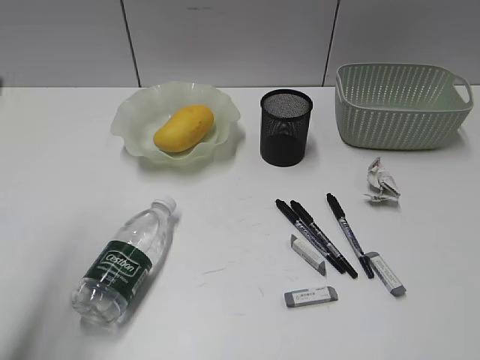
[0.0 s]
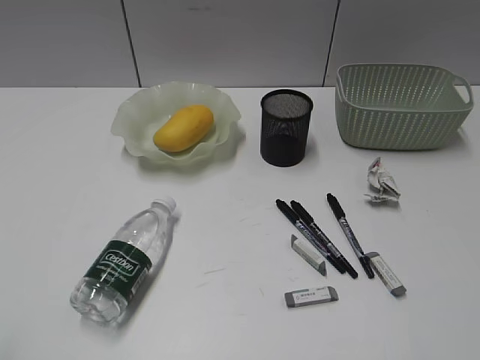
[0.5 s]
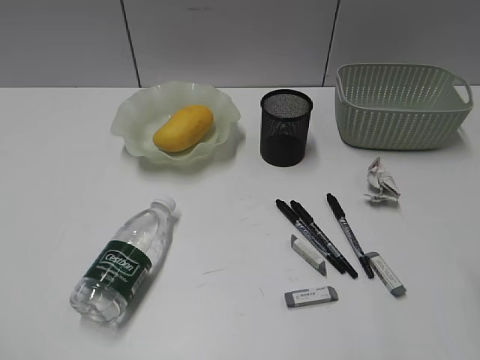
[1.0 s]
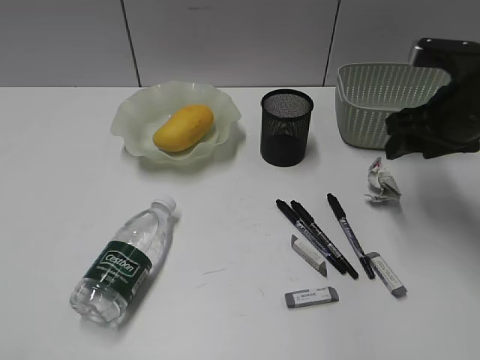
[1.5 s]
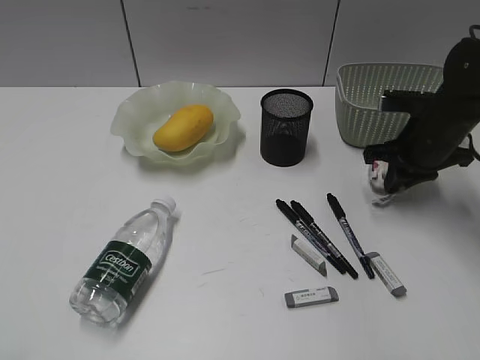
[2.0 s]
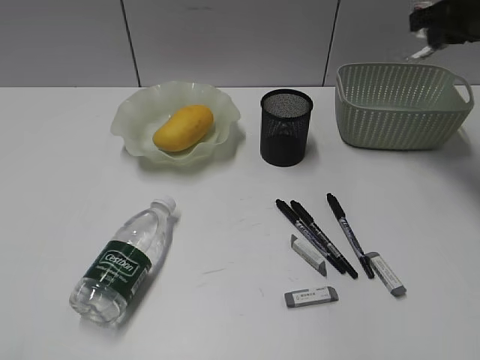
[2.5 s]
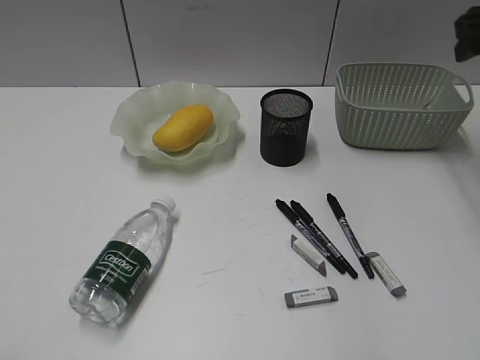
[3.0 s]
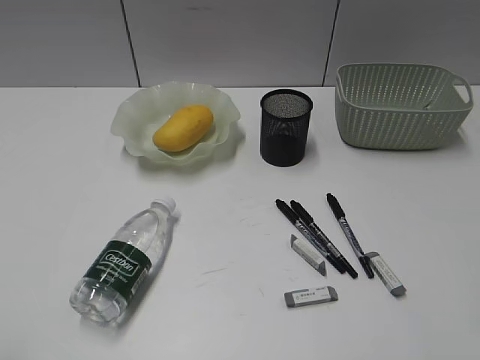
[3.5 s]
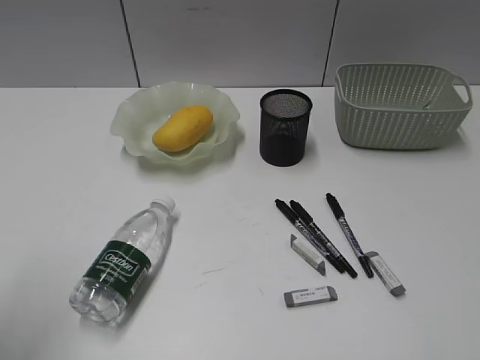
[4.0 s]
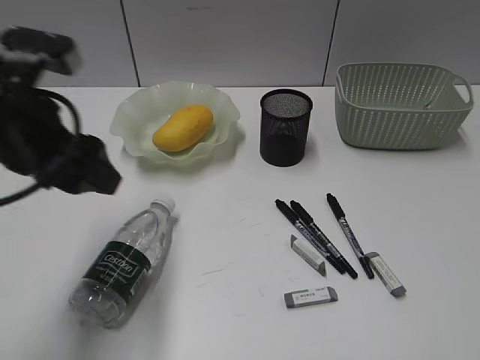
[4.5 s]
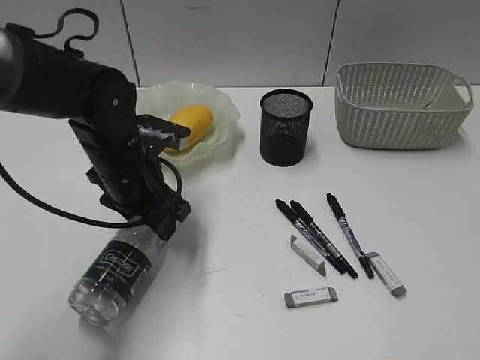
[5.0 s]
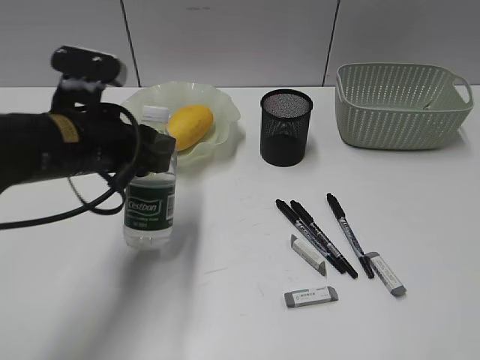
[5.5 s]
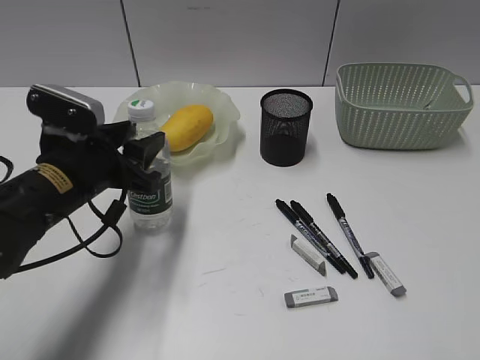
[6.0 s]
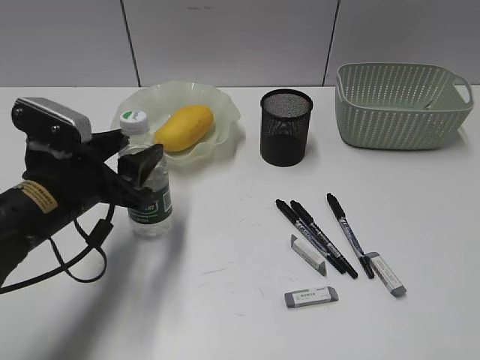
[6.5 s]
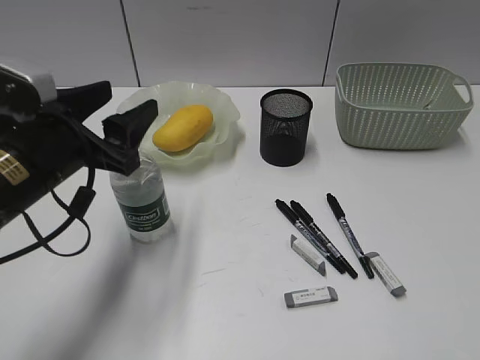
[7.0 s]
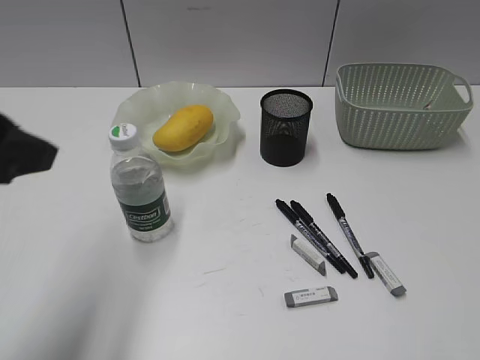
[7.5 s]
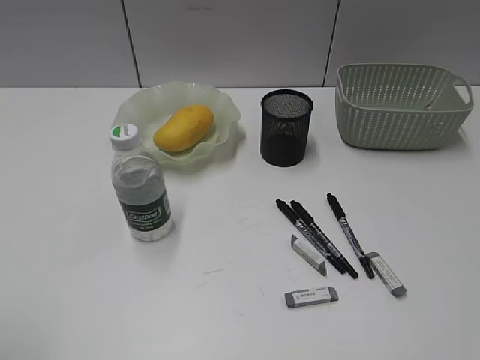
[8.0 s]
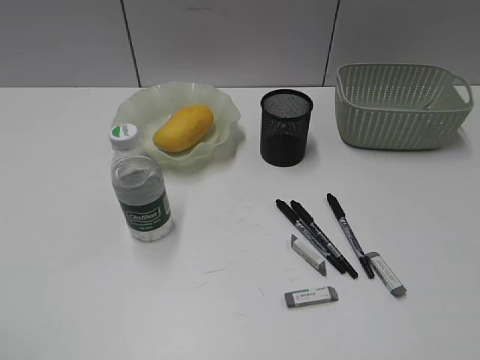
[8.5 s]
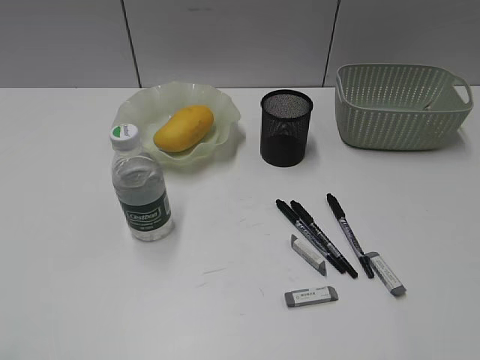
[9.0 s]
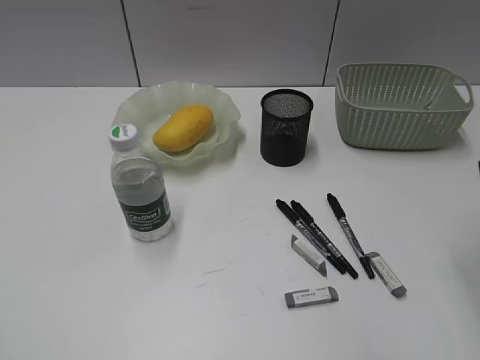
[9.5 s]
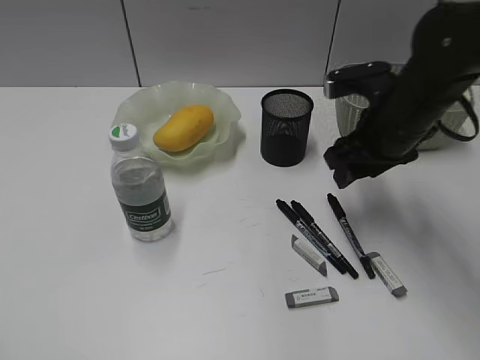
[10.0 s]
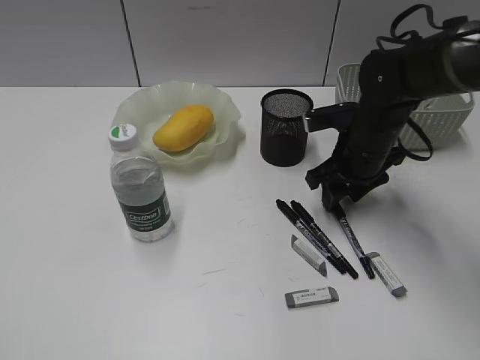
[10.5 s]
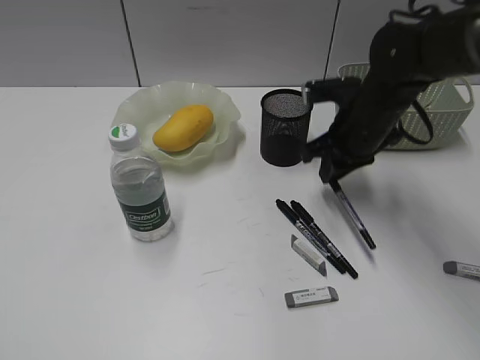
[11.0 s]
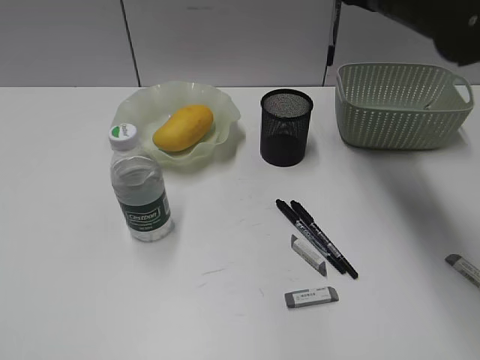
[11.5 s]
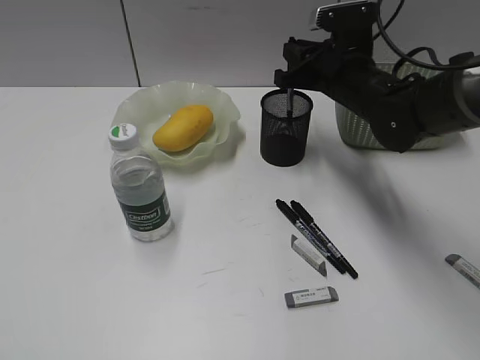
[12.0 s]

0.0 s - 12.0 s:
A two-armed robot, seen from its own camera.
Step, 0.0 s - 2.0 s: Grasp the waste paper with right gripper.
Step, 3.0 s - 5.0 s: Grasp the bottle with left gripper.
Step, 5.5 s - 6.5 s: Stand the bottle with left gripper.
Step, 7.0 s - 10.5 s: Grasp the black pen with right gripper.
0.0 s - 2.0 s: The right gripper travels forward and downward by about 40 cm, and closes up, while the left gripper shifts some 20 cm backward.
2.0 s - 4.0 s: The right gripper is displaced backward and upward by roughly 40 cm, and opens. The left gripper travels forward by about 10 cm.
4.0 s - 6.0 s: The left gripper goes some 25 cm forward, downward and to the right, and opens, then closes again.
6.0 s - 8.0 s: The left gripper heads backward, upward and to the left, covering roughly 30 cm, and opens, then closes again.
8.0 s - 10.0 s: The right gripper heads forward, covering roughly 35 cm.
10.0 s - 12.0 s: The right gripper goes up and down, roughly 15 cm each way, reversing 2 times, and closes.

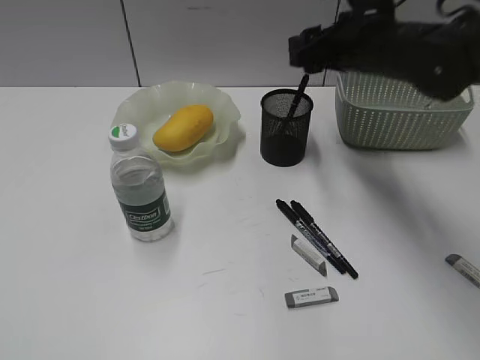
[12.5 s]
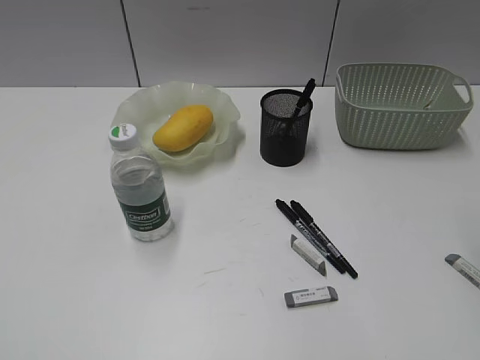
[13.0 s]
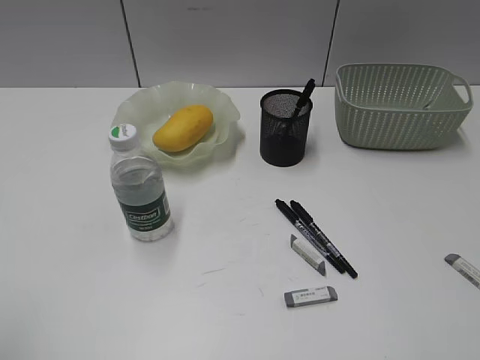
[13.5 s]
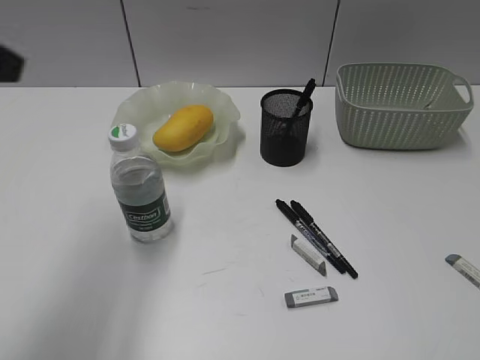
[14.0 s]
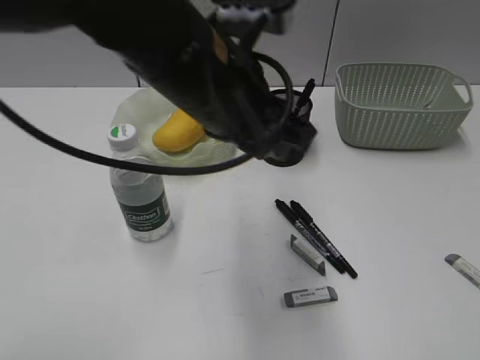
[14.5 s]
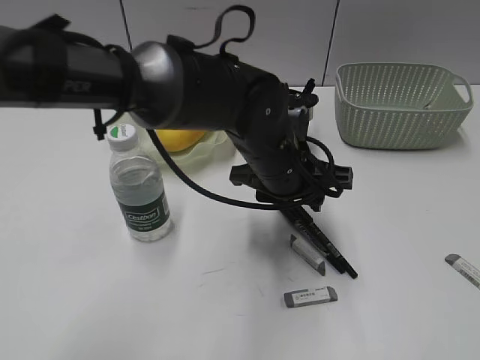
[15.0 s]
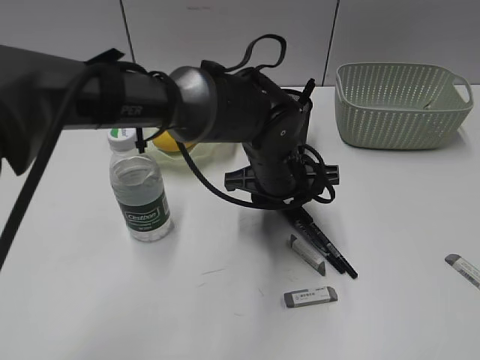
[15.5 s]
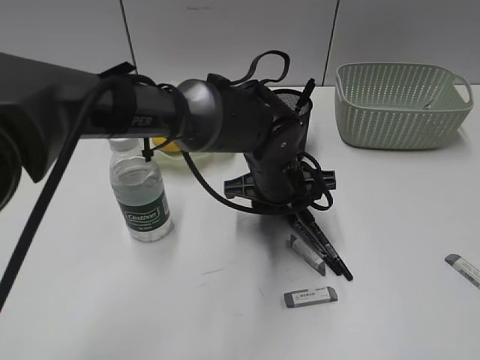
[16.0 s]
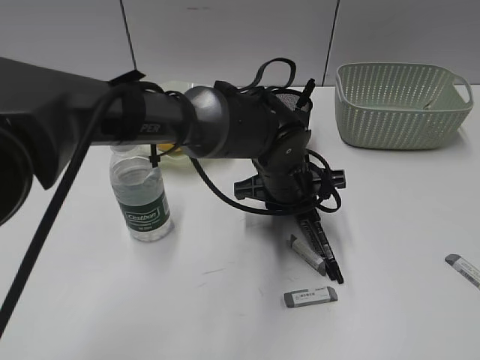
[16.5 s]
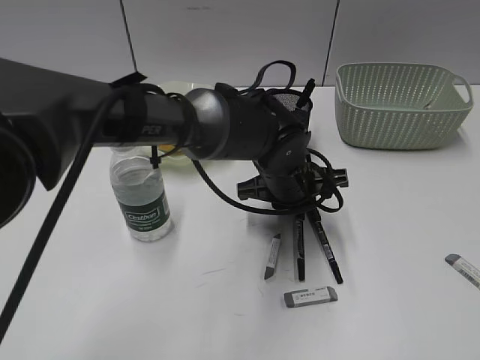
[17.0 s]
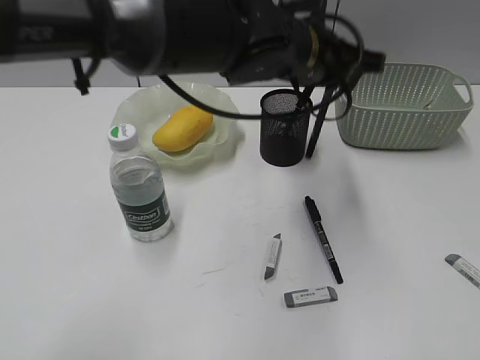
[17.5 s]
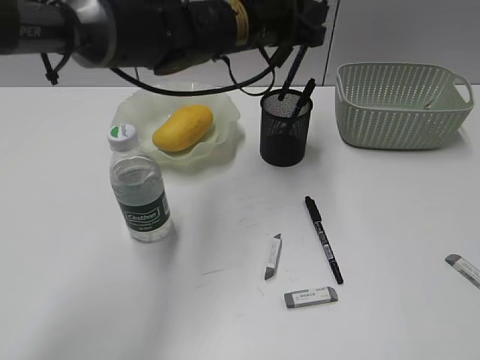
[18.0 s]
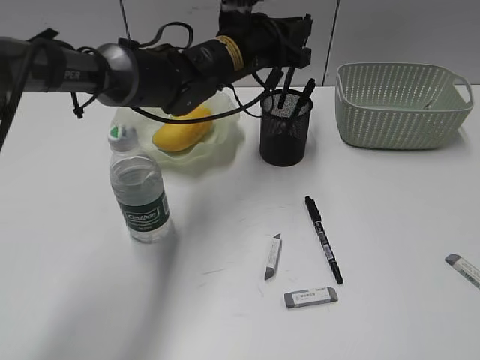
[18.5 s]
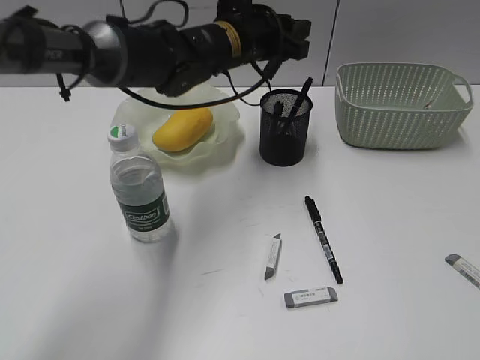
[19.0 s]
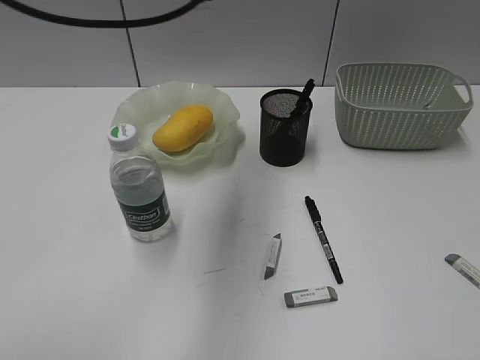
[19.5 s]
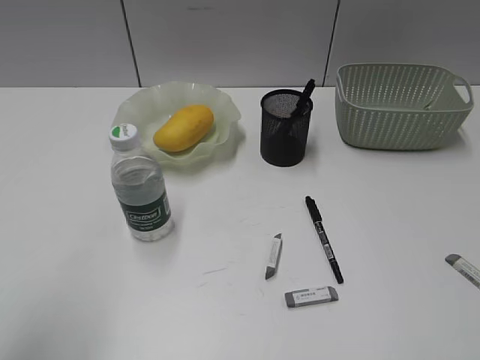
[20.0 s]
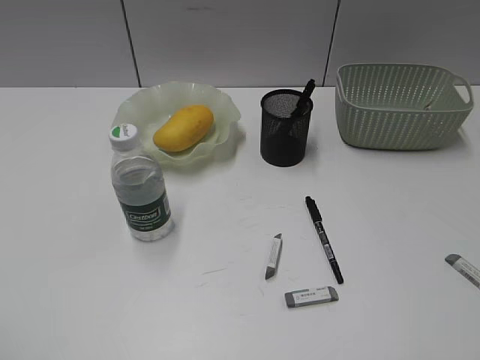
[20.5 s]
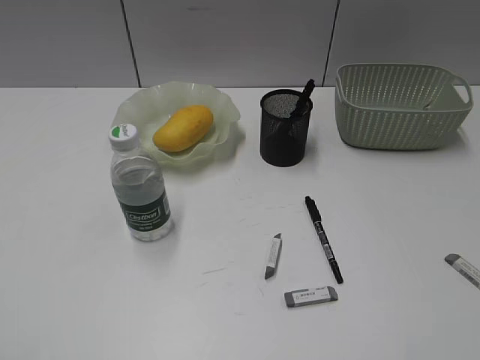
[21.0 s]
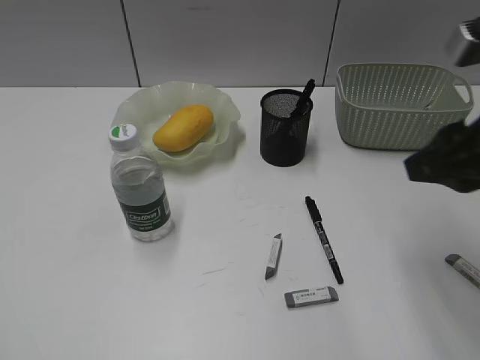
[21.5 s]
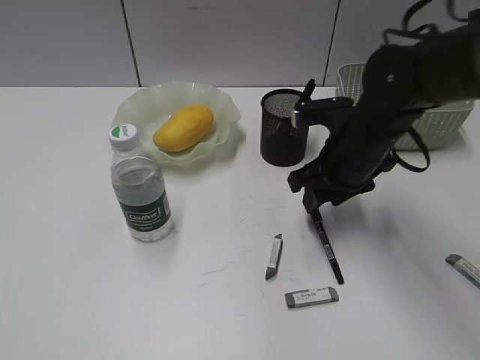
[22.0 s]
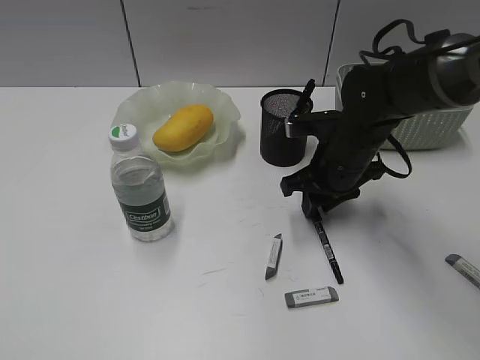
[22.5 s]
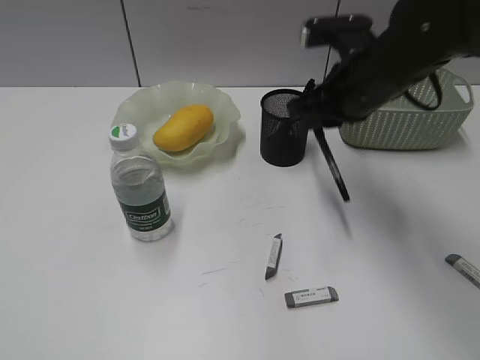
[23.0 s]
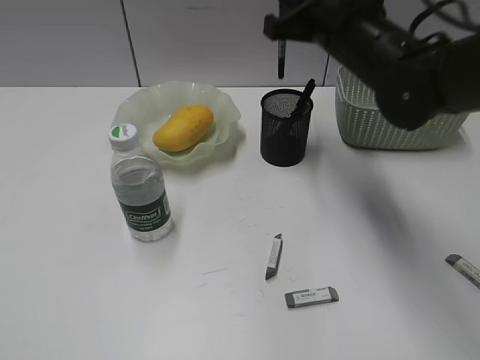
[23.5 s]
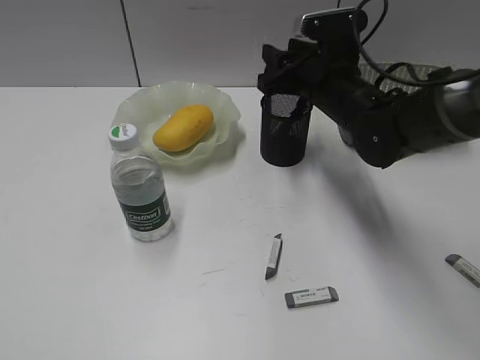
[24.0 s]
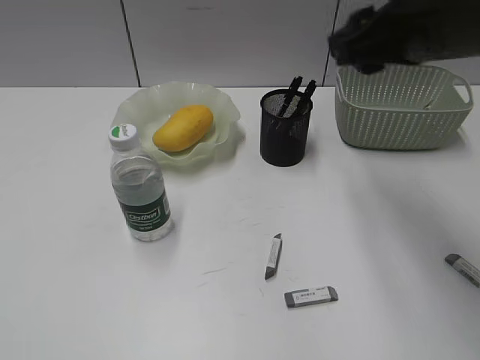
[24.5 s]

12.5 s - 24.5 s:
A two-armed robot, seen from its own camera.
Step, 13.0 s - 17.0 s: Grasp the black pen with left gripper.
Step, 17.5 s - 18.5 s: Place the black pen in pen holder with left gripper.
Step, 19.0 s - 22.5 s: Grasp the black pen with right gripper.
Step, 23.0 s - 24.0 s: Place the black pen in pen holder with right gripper.
12.5 s - 14.5 s: The right gripper heads backward and to the right, covering about 40 cm; the left gripper shifts approximately 40 cm to the right and forward.
14.5 s - 16.5 s: The left gripper travels downward, to the right and forward by about 20 cm.
16.5 s - 18.5 s: The left gripper heads forward, upward and to the left, covering some 15 cm.
18.5 s - 20.5 s: The left gripper moves backward and to the left, some 50 cm, and opens its fingers.
20.5 s - 22.5 s: The right gripper moves forward, to the left and downward, about 40 cm.
22.5 s - 24.5 s: The right gripper goes up and down, roughly 20 cm each way, reversing 2 times, and opens.

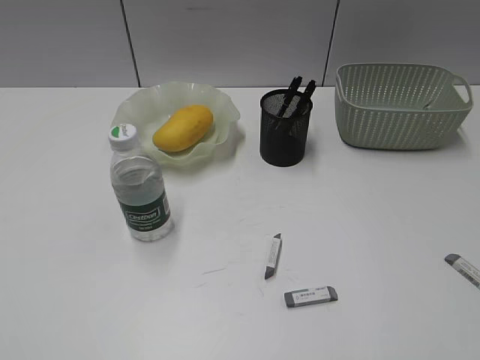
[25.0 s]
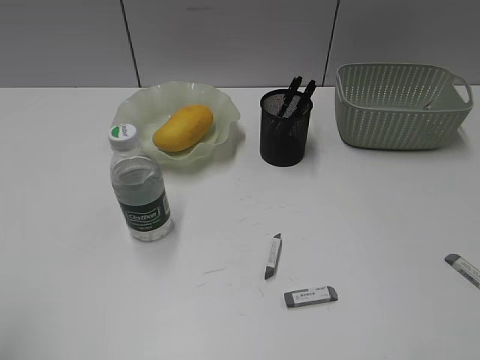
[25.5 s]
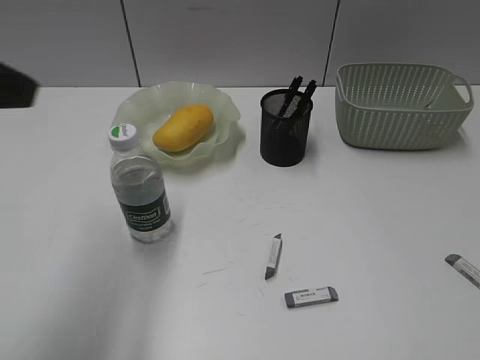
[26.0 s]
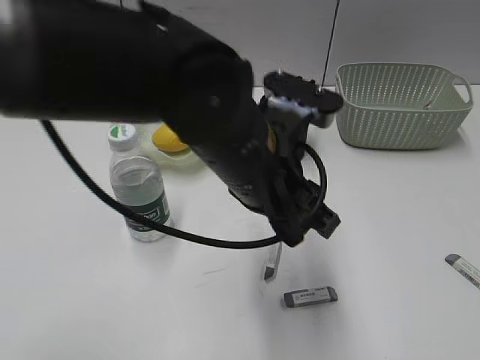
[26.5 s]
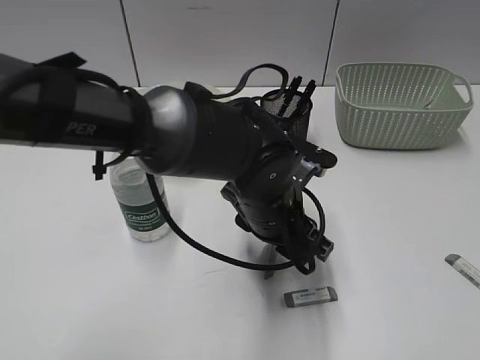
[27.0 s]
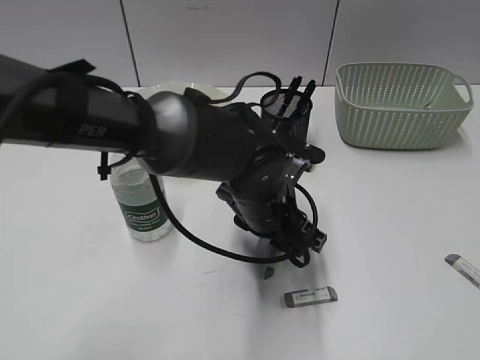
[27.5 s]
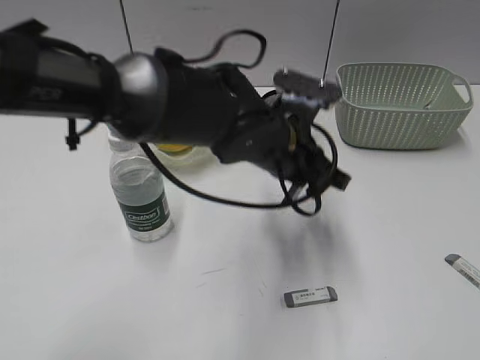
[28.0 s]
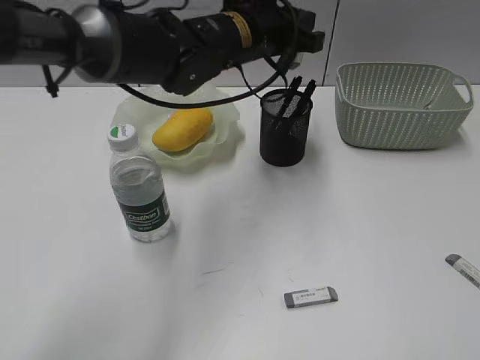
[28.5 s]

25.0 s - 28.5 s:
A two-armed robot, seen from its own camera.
Step, 25.0 s - 27.5 s: Grasp the eraser with left gripper.
25.0 s - 27.0 s: The left gripper travels to the right, forward and downward by about 50 cm, while the right gripper shifts some 10 cm backward.
27.0 s - 28.5 s: The left gripper travels forward and upward by some 20 cm, and closes up.
